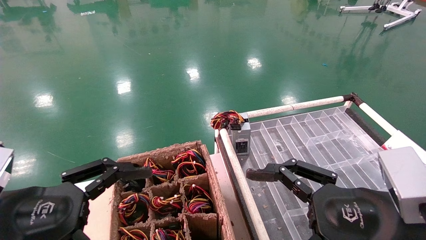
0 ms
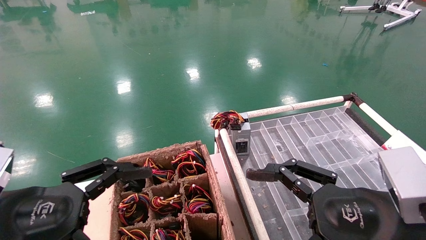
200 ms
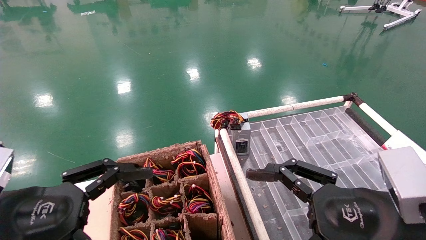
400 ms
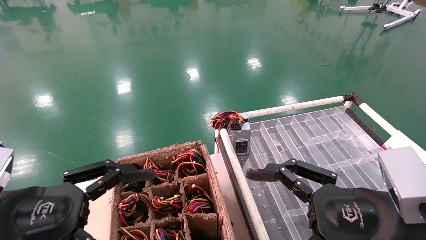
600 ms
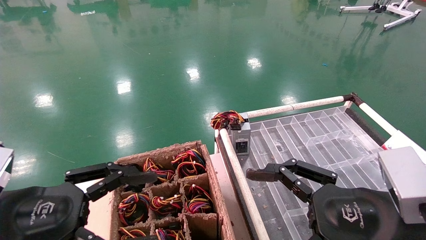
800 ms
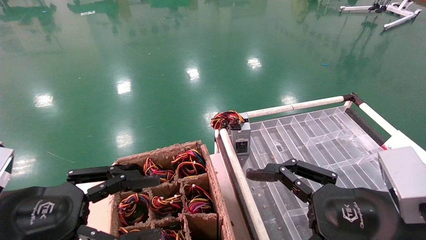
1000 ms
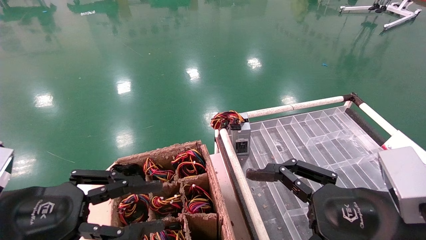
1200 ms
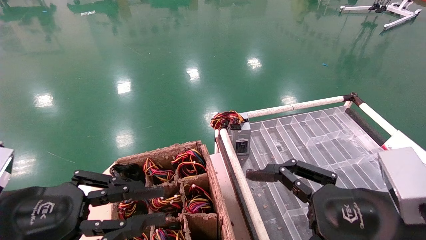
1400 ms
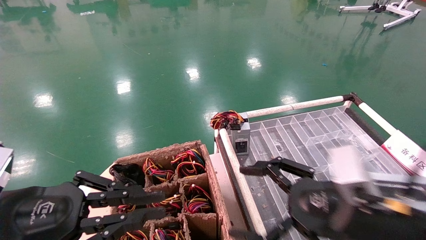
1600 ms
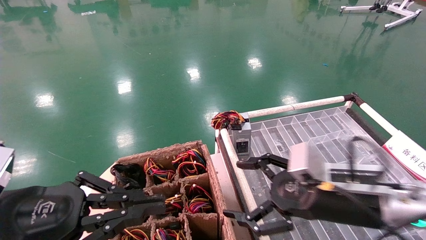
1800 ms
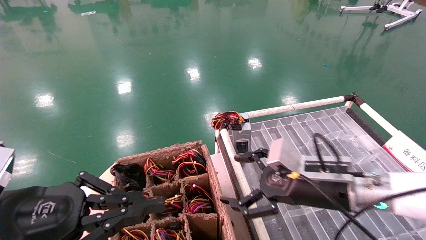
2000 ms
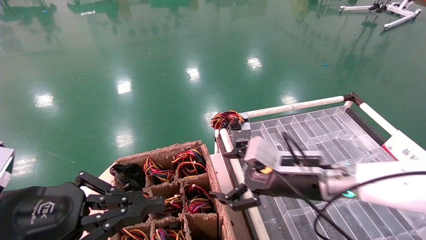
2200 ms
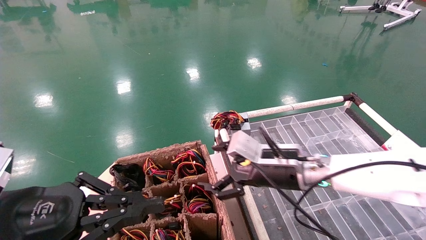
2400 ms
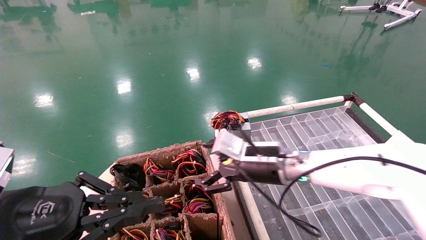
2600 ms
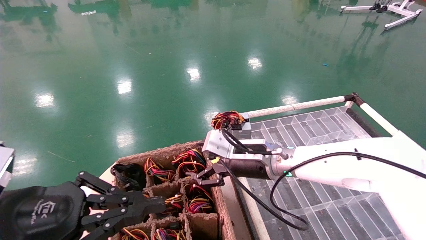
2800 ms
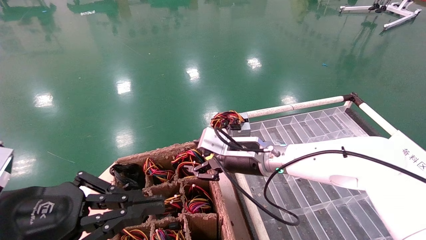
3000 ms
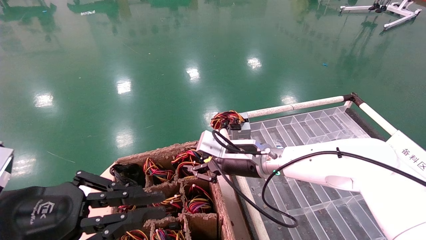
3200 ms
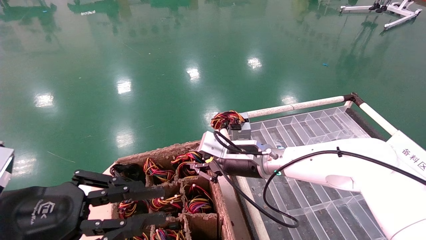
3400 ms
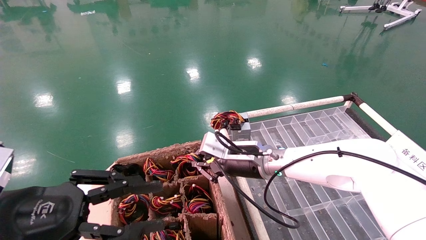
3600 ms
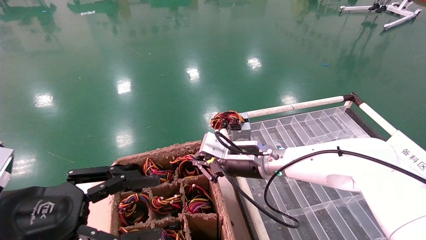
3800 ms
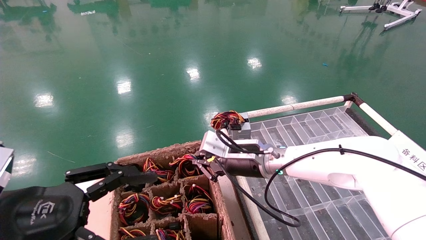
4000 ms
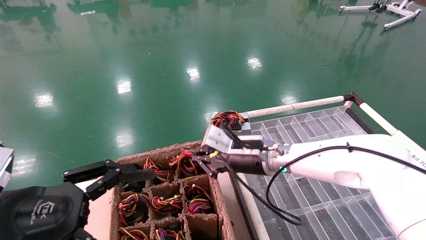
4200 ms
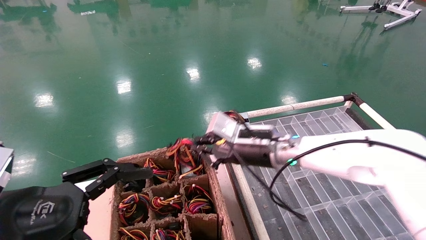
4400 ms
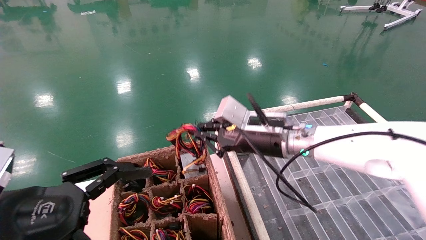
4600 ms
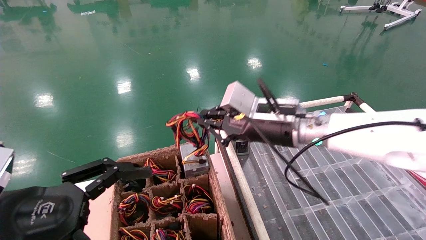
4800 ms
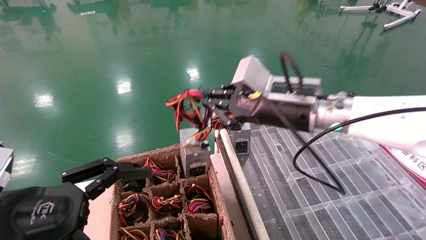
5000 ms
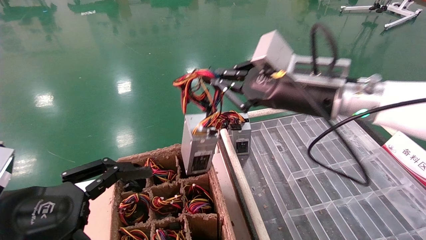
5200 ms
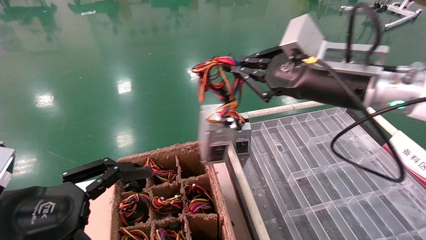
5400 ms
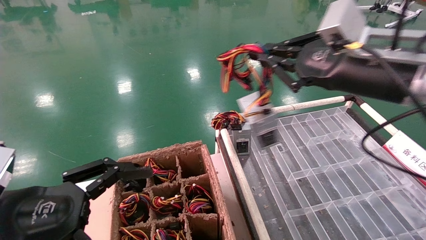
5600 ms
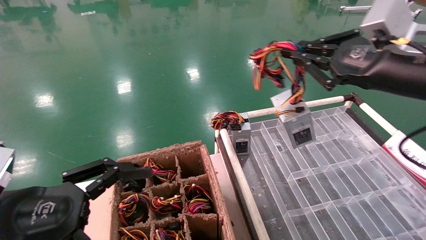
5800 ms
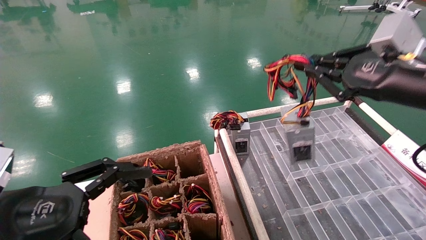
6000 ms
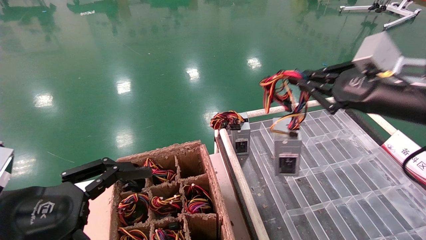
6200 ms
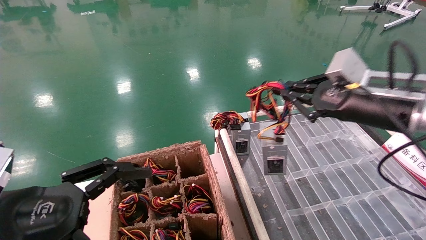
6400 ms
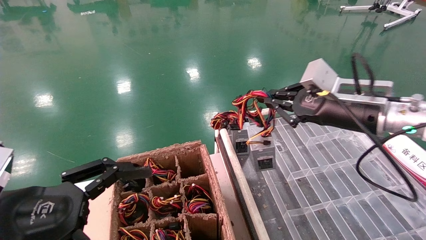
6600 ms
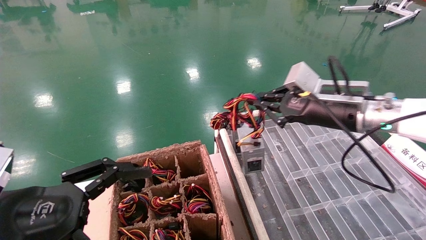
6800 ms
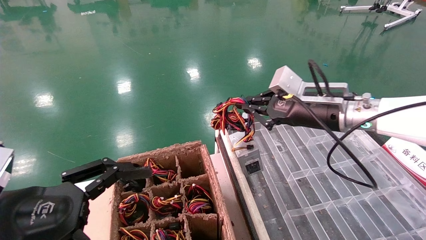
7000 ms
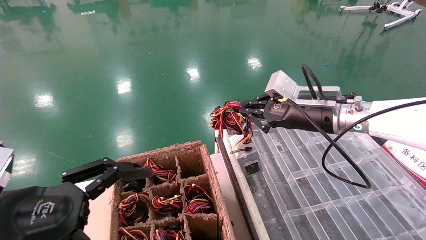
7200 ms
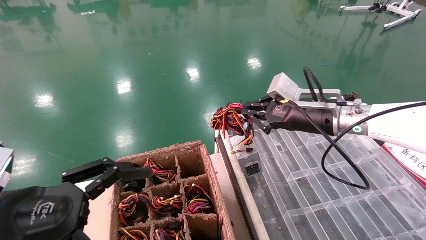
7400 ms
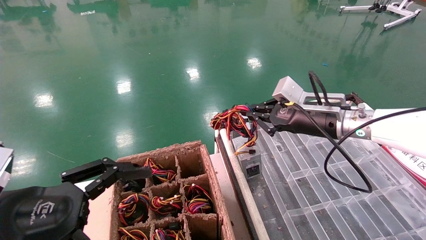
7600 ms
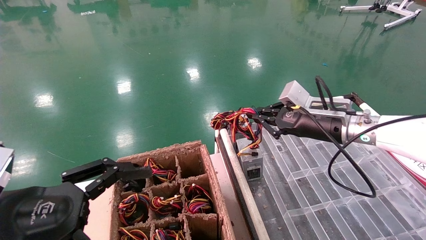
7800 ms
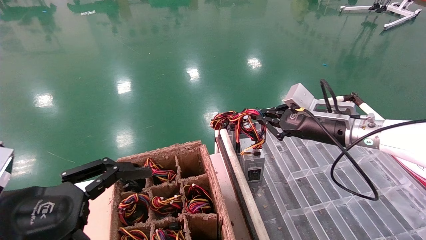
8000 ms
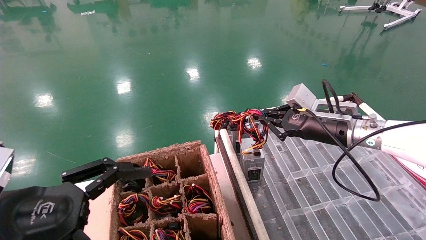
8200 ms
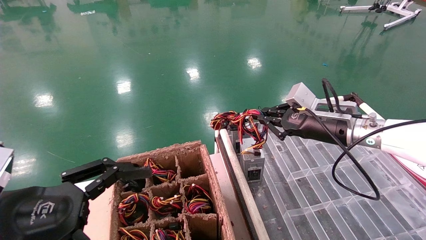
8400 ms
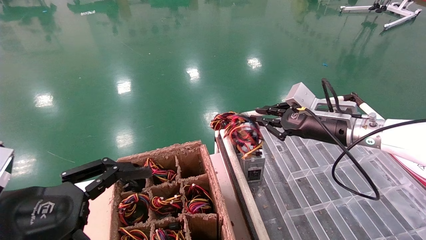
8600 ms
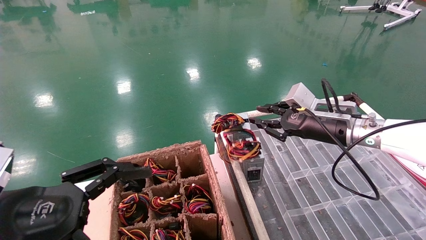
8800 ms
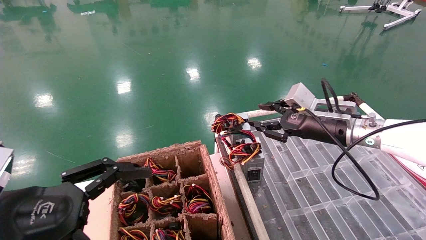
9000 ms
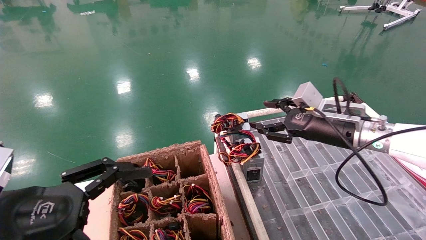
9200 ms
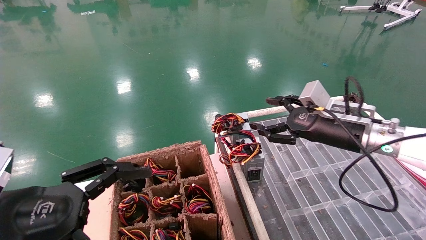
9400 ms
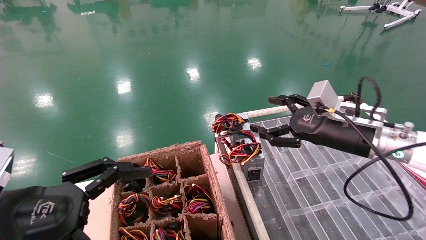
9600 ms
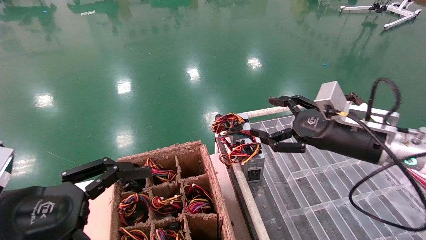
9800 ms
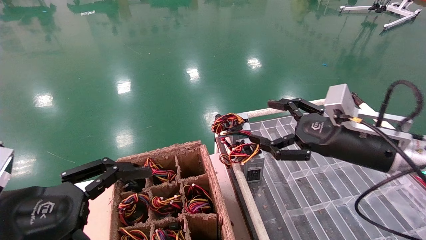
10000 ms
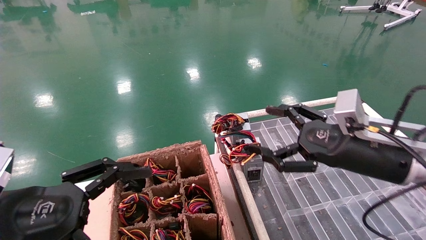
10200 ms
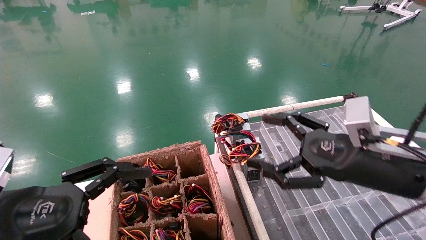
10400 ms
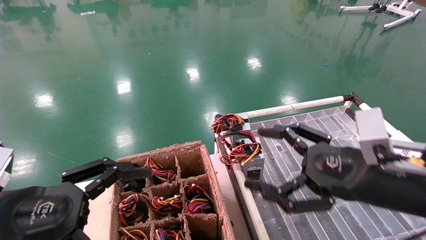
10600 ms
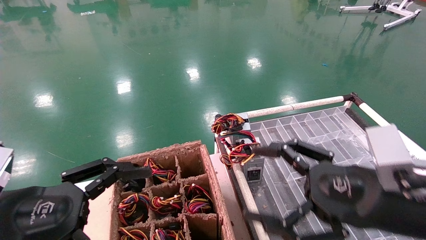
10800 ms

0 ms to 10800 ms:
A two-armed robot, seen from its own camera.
Step, 1000 ms to 3800 ms: Grab and lift the power supply from the large box.
Step, 4000 ms to 8400 ms: Place the power supply on the operating table.
0 ms to 1600 ms: The right gripper travels forward by some 5 cm. The left gripper closes its fingers.
1600 ms to 3000 ms: The right gripper heads forward and to the left, covering roughly 20 cm.
3000 ms to 4600 ms: The left gripper opens, while the right gripper travels upward by some 5 cm, and closes its fingers.
4600 ms to 6200 ms: The right gripper travels to the right, backward and upward by approximately 20 cm.
6200 ms to 7800 ms: The right gripper heads forward and downward, covering about 15 cm.
7800 ms to 9200 ms: The right gripper opens.
9200 ms to 10800 ms: The right gripper is displaced backward by roughly 20 cm, and opens up.

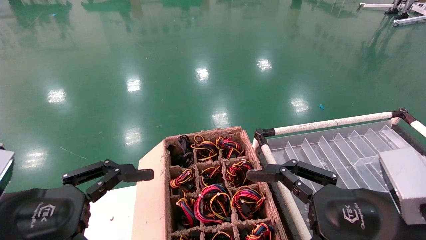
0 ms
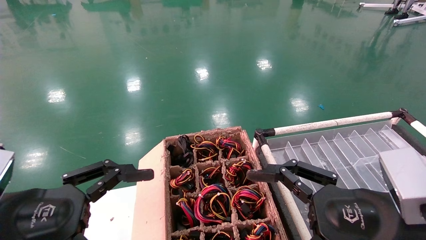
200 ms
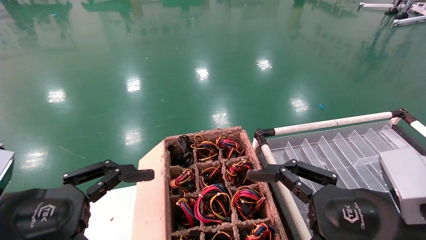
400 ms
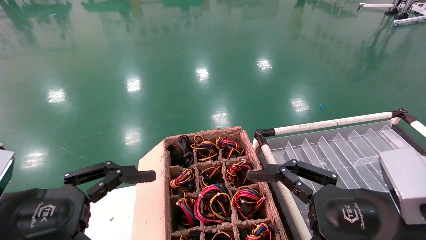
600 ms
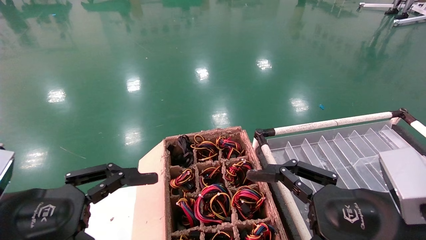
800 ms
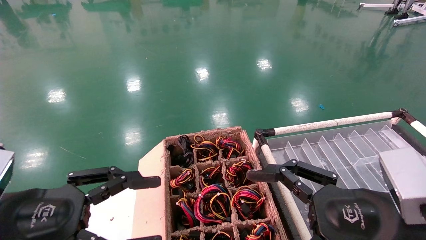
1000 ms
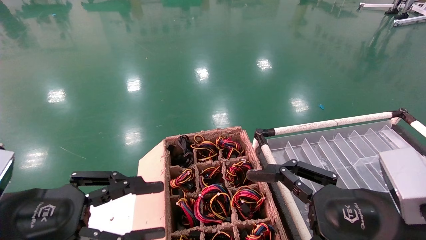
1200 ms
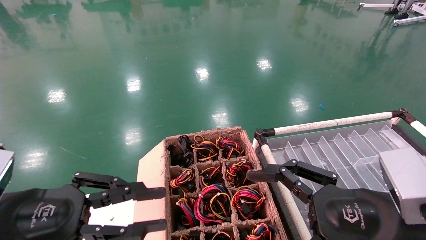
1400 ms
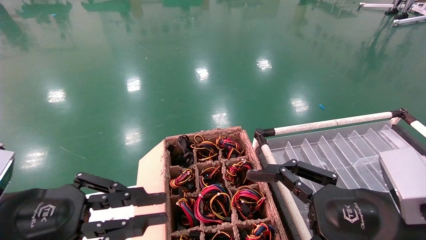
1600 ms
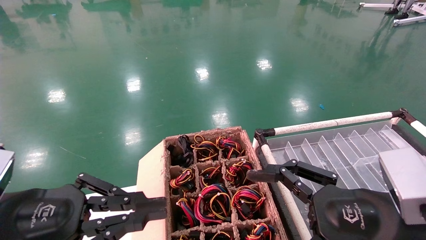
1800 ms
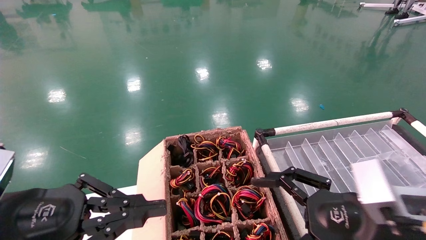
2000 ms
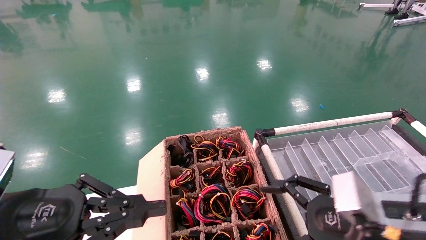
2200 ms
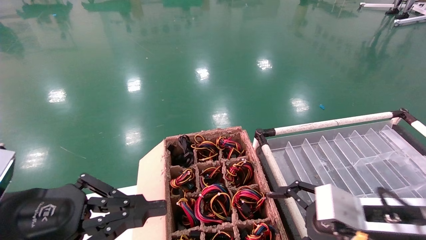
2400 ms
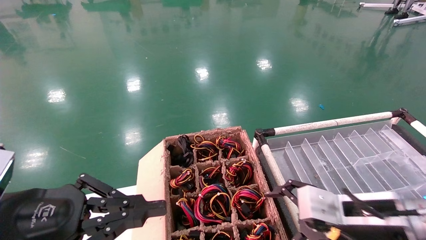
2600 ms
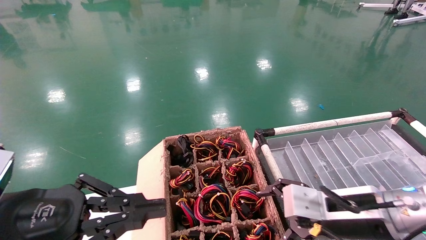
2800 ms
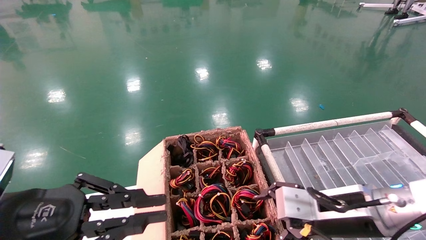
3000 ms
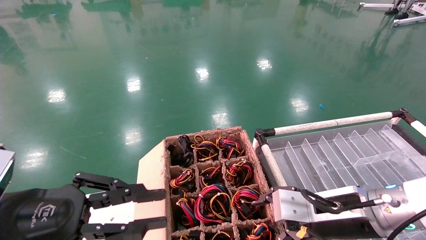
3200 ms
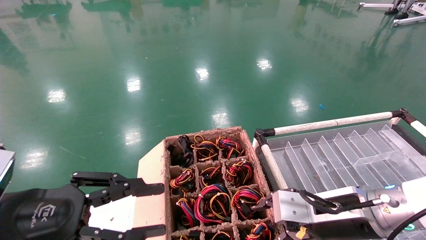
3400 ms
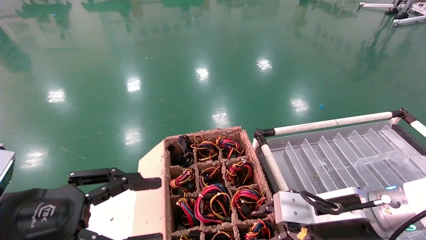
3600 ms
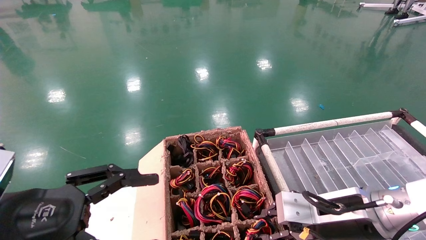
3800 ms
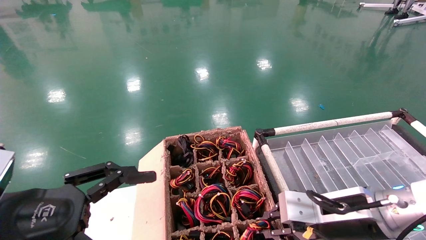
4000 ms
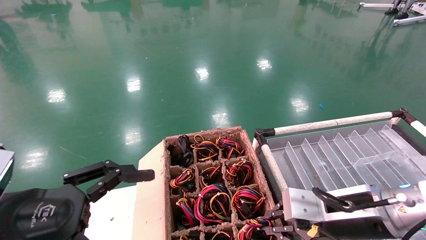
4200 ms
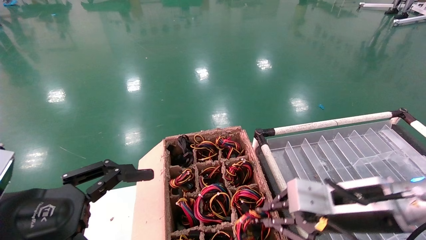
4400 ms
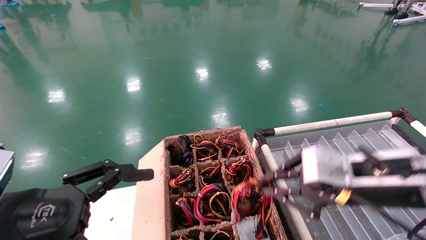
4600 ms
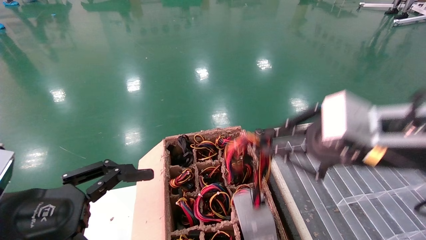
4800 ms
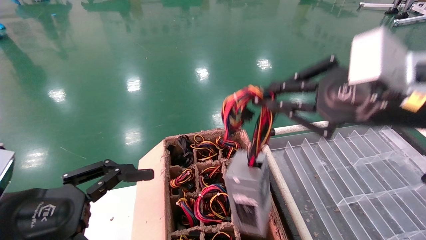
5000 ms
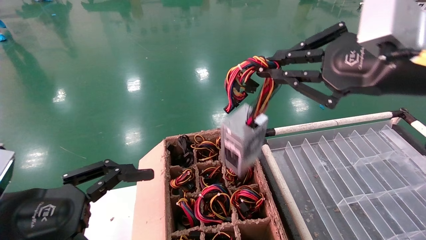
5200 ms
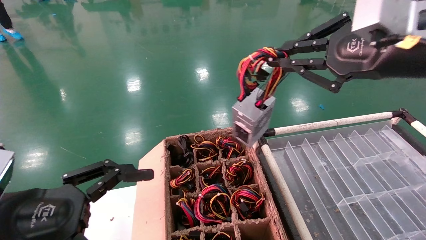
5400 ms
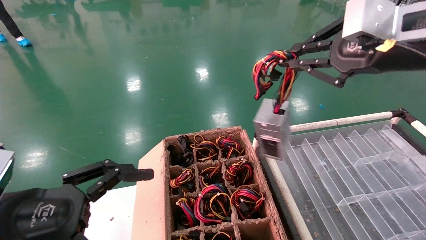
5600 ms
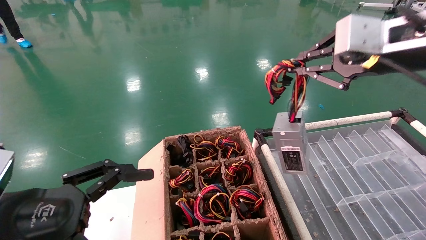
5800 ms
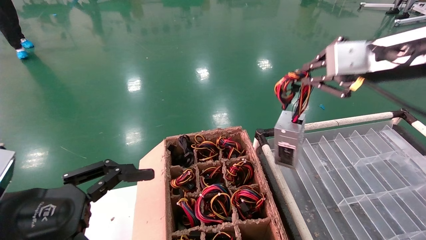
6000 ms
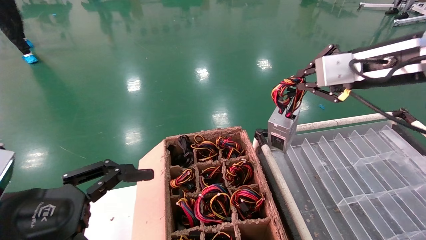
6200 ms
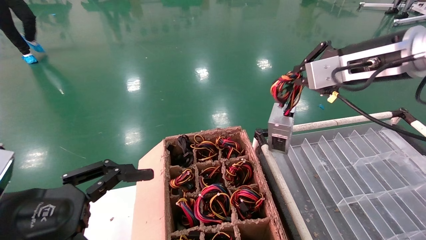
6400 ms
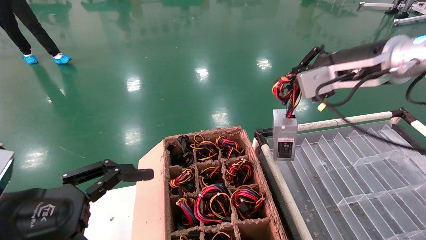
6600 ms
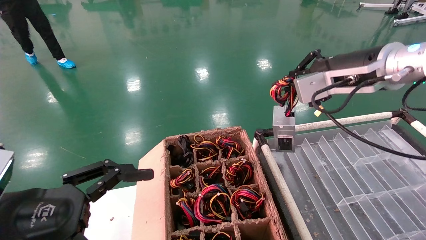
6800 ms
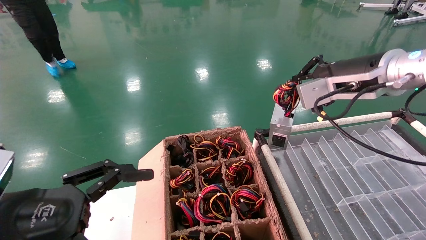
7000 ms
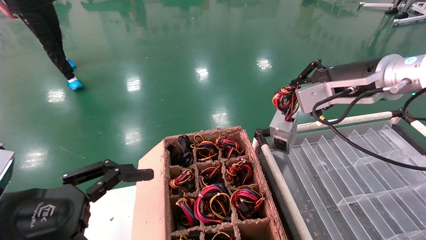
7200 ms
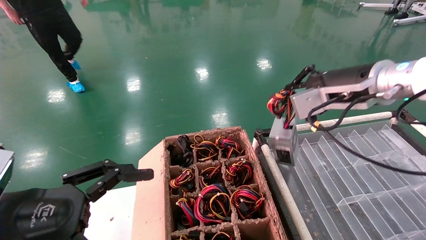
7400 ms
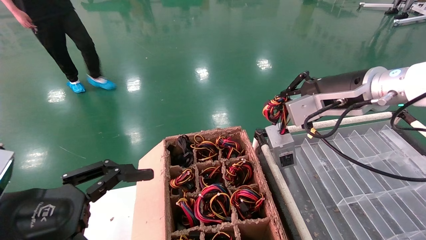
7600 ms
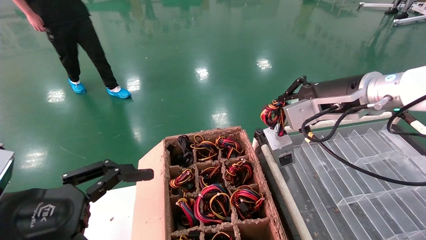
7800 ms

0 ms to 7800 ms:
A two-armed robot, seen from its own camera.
Step, 1000 ms to 4200 ms: Grab and lift the power supply from the large box.
0 ms to 1600 ms: The left gripper closes up.
1600 ms to 3200 ms: The right gripper travels forward by roughly 10 cm.
3200 ms to 4600 ms: The right gripper moves upward, about 10 cm, and closes. Meanwhile the left gripper opens up.
4600 ms to 6200 ms: The right gripper heads upward and forward, covering some 15 cm.
6200 ms to 7800 ms: The right gripper moves downward and forward, about 10 cm.
